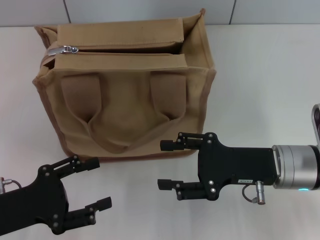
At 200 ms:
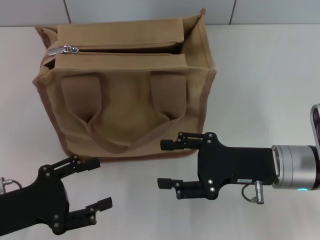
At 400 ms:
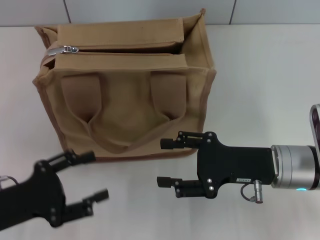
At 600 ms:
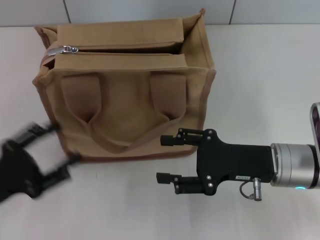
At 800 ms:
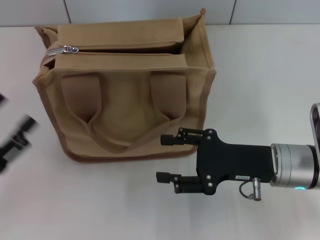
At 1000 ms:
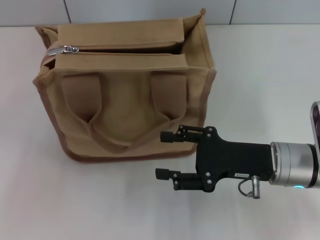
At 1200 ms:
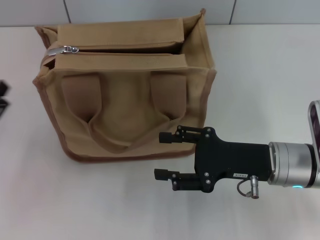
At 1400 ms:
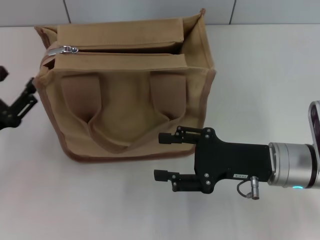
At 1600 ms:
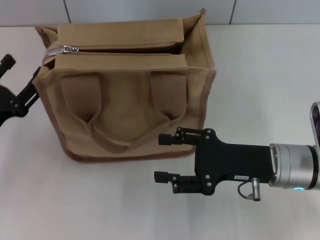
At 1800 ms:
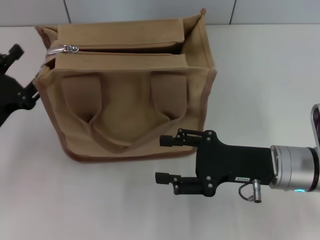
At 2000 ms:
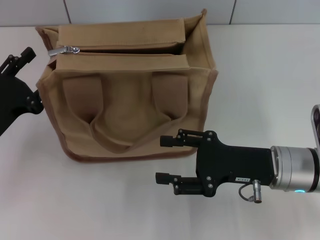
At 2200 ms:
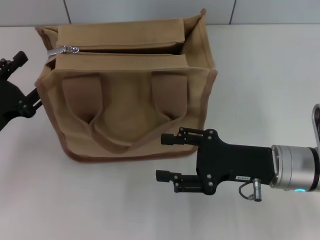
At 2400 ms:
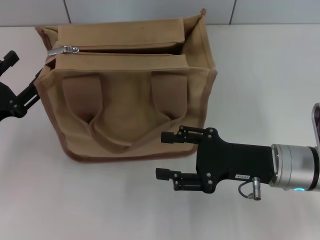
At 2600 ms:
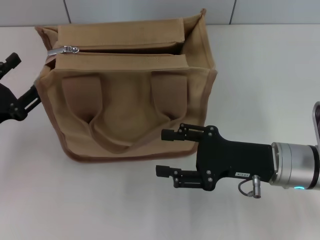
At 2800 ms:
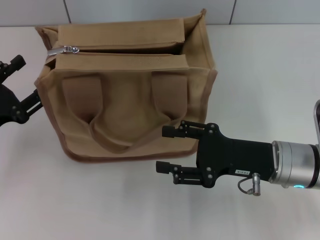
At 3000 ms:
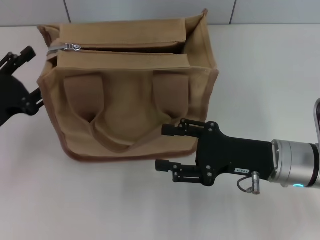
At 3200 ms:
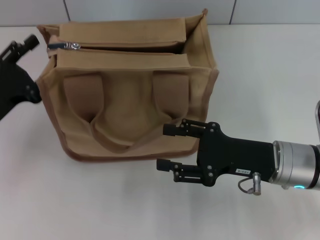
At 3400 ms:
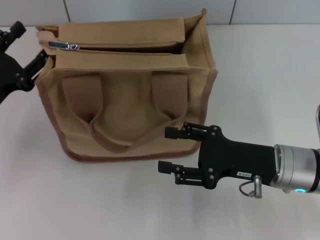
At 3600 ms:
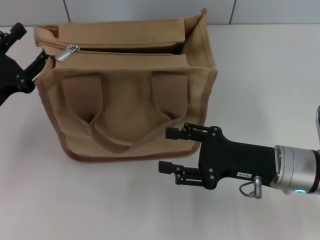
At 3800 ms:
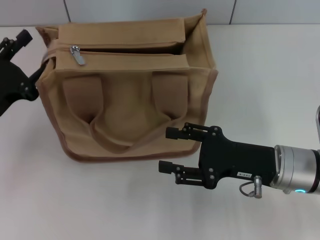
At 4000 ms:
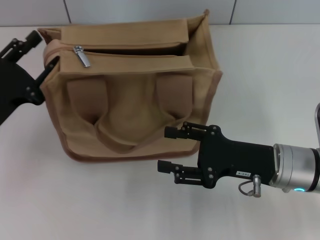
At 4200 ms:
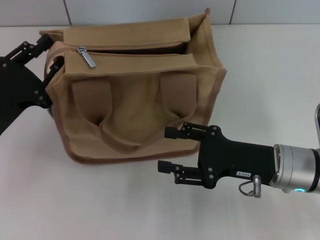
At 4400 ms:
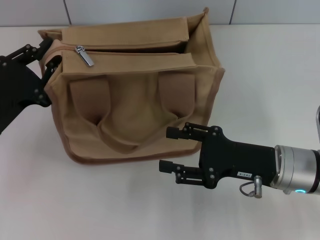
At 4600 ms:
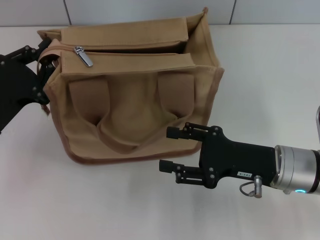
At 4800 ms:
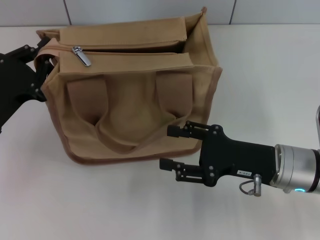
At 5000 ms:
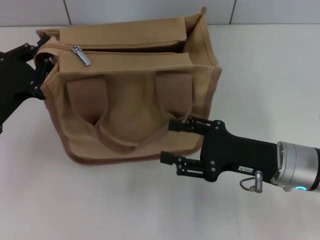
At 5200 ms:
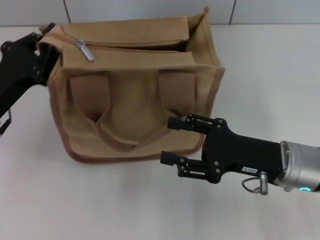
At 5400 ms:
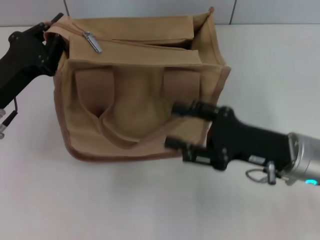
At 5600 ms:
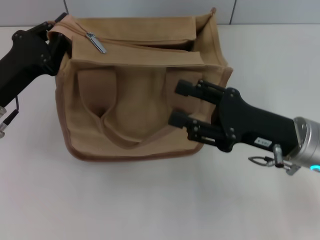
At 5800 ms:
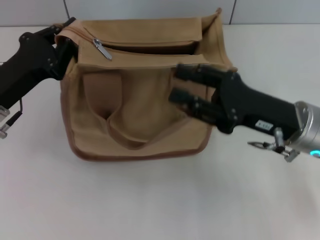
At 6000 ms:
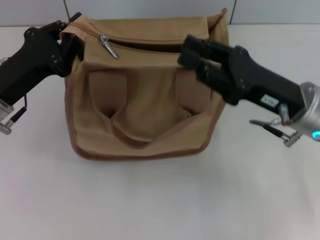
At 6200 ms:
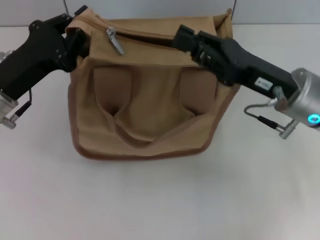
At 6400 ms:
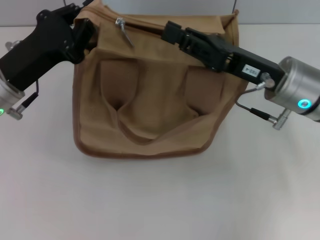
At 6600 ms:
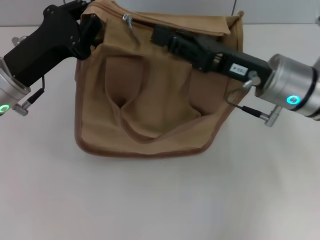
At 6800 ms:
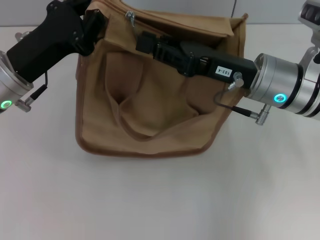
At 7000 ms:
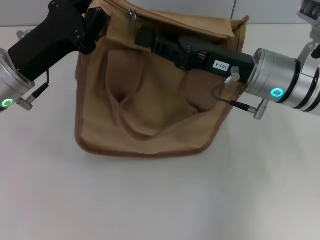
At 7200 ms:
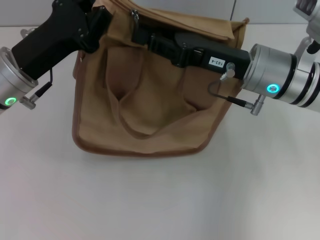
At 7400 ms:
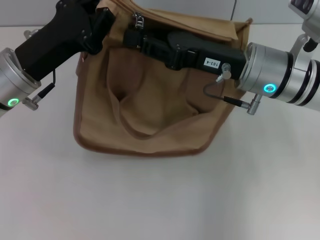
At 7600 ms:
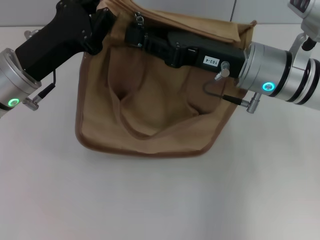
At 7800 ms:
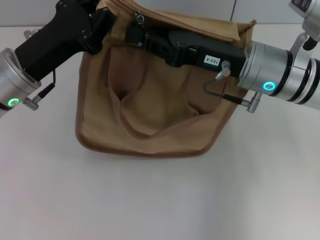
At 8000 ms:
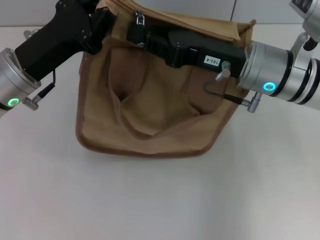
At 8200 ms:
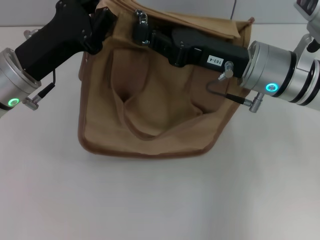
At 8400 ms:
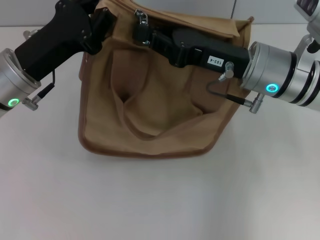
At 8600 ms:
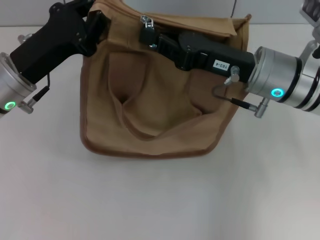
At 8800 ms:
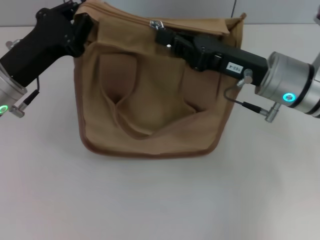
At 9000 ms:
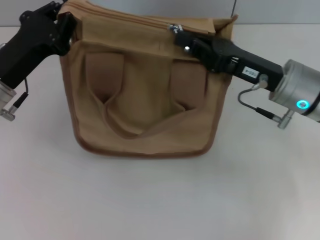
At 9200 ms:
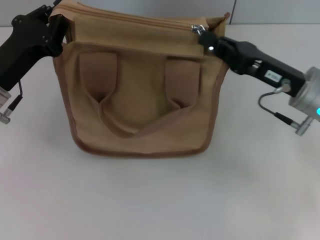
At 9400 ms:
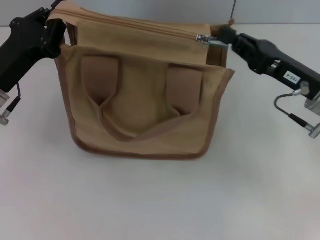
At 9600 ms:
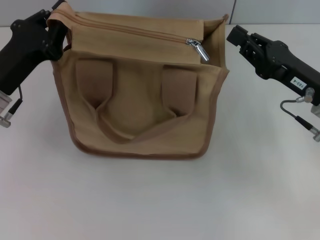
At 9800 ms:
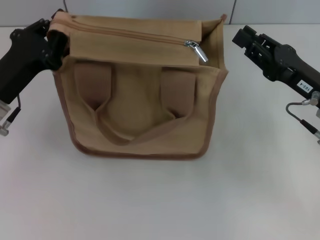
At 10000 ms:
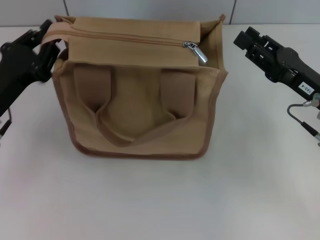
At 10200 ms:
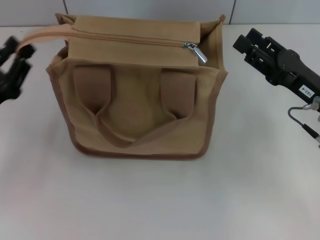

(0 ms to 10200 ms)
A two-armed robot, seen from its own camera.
Step, 0 ms - 9200 ms: Pull up the zipper with your right hand.
0 ms - 1400 ms: The left gripper ends up about 5 cm from where it was.
1400 ms - 3000 ms: The grippers stay close to where they were, moving slightly.
3000 ms - 4400 ms: There are only small adjustments of the grippers.
4400 ms - 5800 ms: The left gripper closes, while the right gripper moves approximately 5 cm.
5800 ms - 7200 ms: The left gripper shifts by roughly 5 cm. The right gripper is displaced forward by roughly 5 cm, and closes its fingers.
7200 ms - 8800 ms: There are only small adjustments of the grippers.
8800 ms - 10200 ms: The left gripper moves backward, to the left and downward, approximately 10 cm. Meanwhile the right gripper goes approximately 10 cm to the right, and opens its fingers.

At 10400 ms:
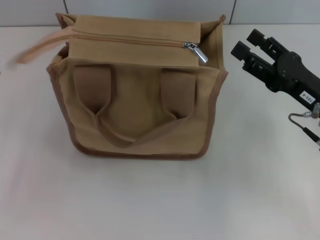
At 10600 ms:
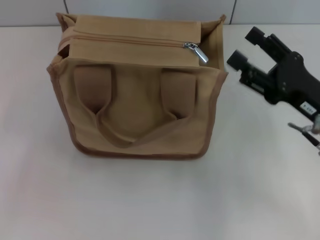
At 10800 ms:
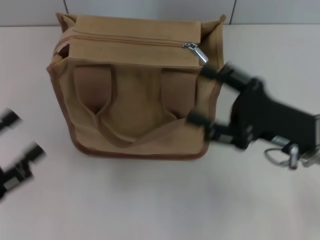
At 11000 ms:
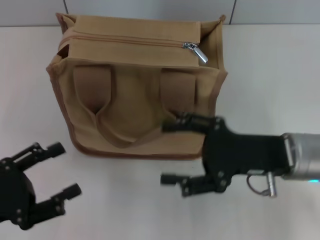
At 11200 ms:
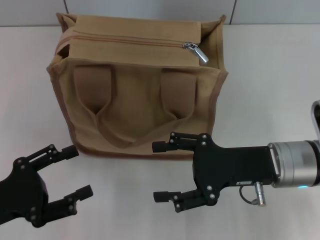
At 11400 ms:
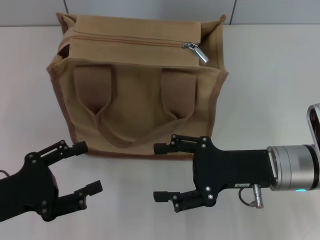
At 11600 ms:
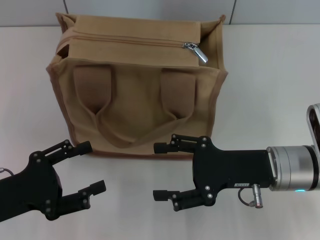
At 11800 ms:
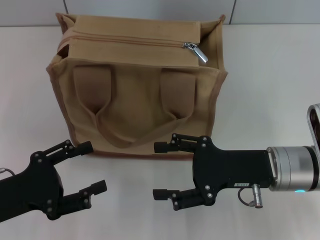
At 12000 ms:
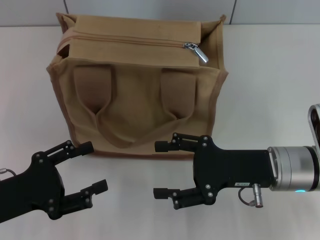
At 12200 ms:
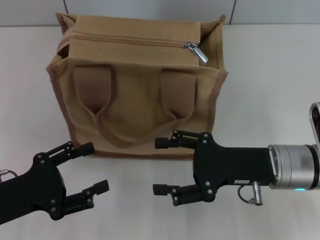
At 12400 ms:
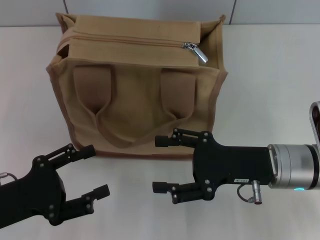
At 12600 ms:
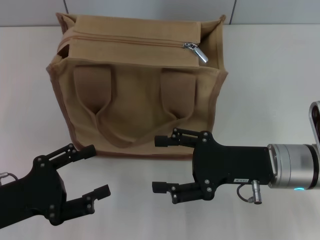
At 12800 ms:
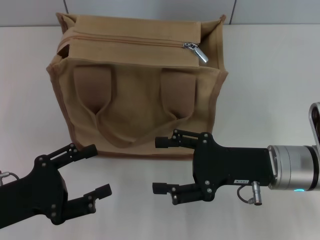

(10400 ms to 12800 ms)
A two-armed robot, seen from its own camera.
10400 ms - 11600 ms: The right gripper goes some 5 cm to the left; the left gripper opens its fingers.
11600 ms - 12800 ms: Both grippers stay put.

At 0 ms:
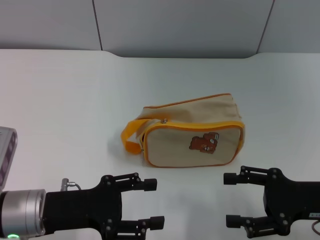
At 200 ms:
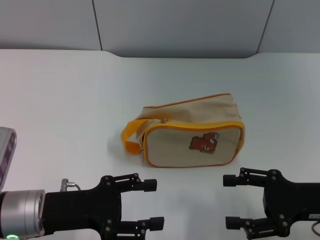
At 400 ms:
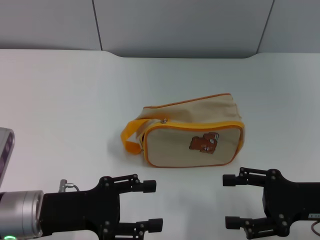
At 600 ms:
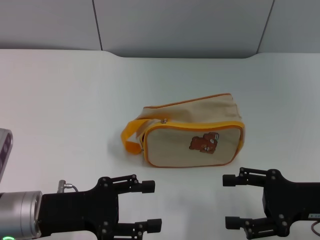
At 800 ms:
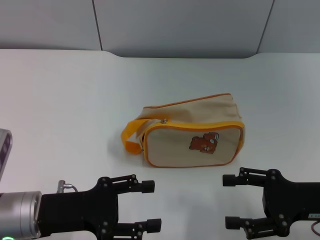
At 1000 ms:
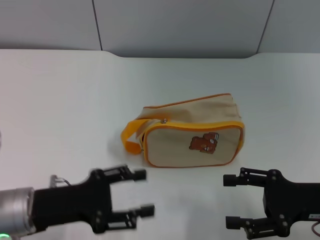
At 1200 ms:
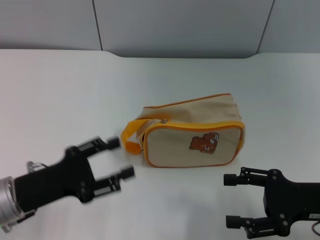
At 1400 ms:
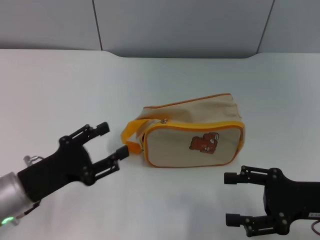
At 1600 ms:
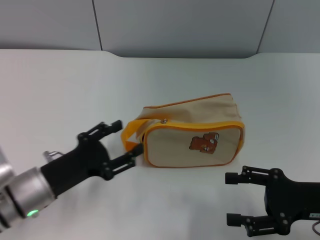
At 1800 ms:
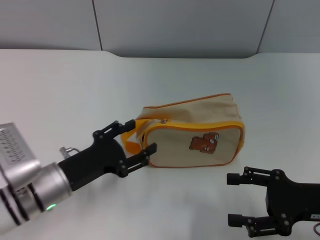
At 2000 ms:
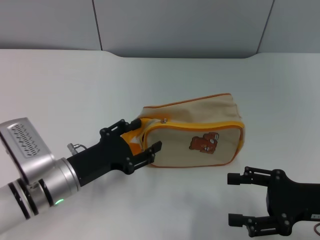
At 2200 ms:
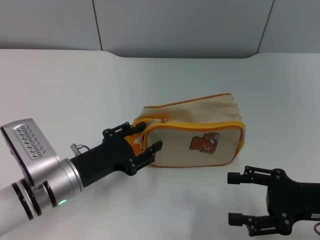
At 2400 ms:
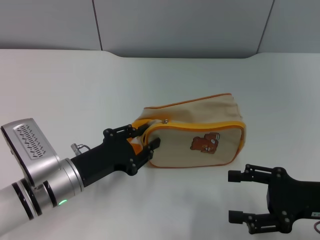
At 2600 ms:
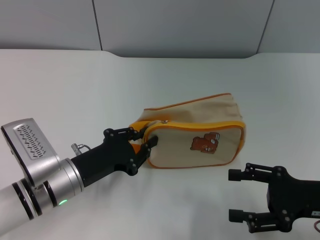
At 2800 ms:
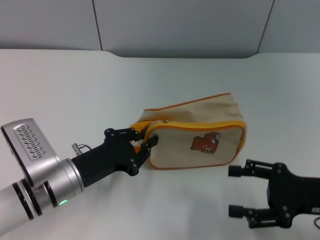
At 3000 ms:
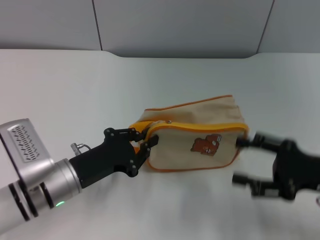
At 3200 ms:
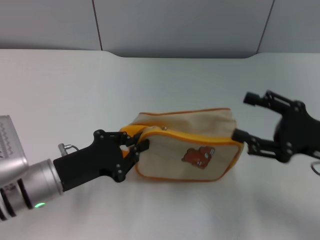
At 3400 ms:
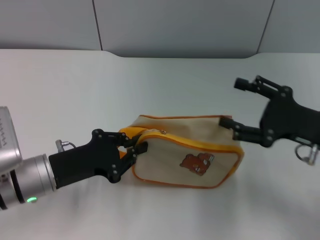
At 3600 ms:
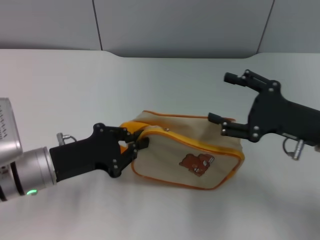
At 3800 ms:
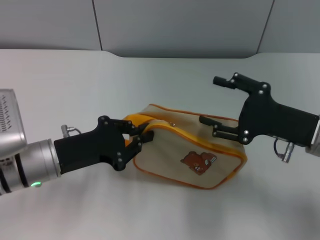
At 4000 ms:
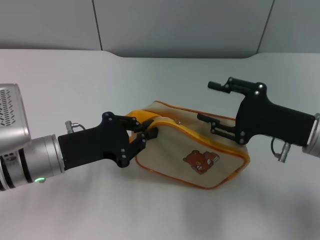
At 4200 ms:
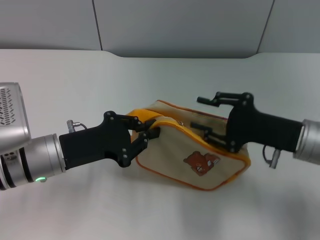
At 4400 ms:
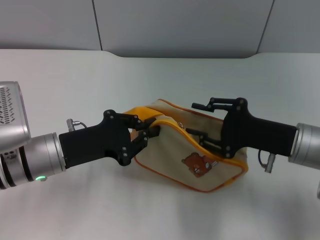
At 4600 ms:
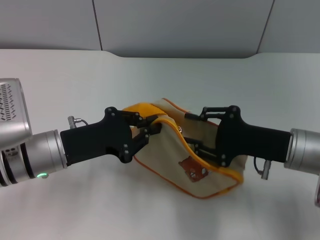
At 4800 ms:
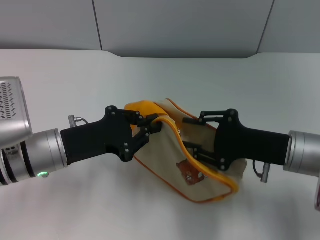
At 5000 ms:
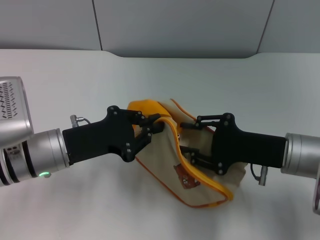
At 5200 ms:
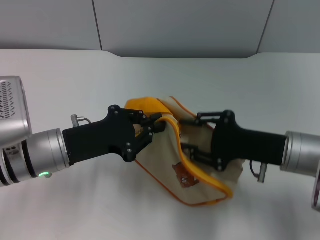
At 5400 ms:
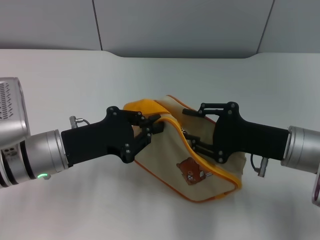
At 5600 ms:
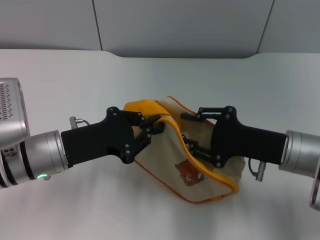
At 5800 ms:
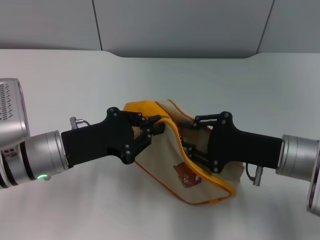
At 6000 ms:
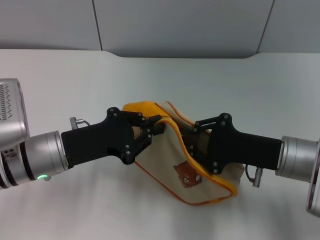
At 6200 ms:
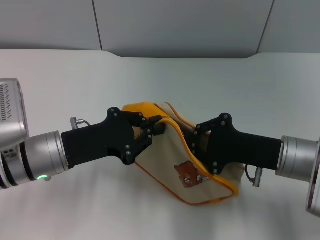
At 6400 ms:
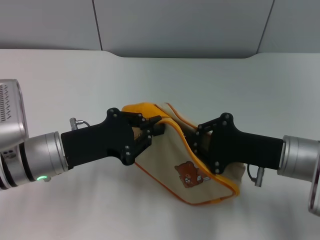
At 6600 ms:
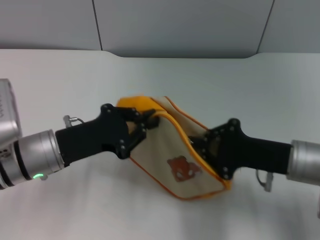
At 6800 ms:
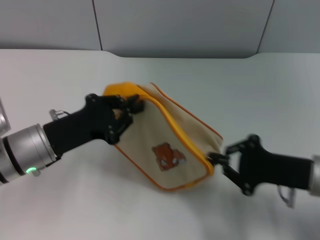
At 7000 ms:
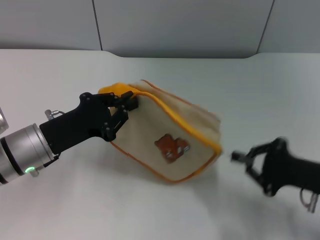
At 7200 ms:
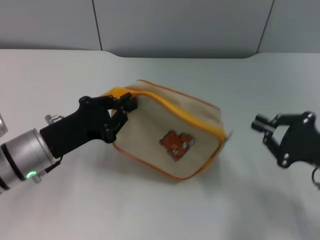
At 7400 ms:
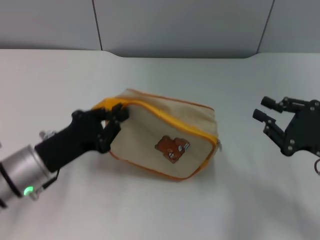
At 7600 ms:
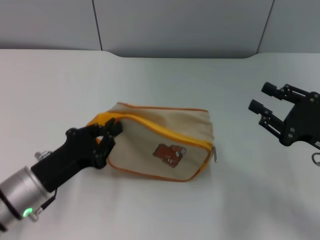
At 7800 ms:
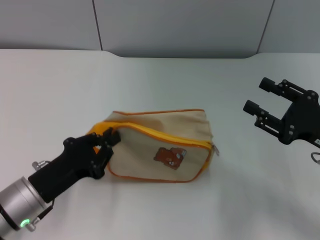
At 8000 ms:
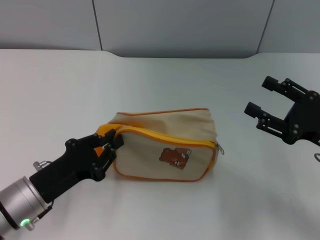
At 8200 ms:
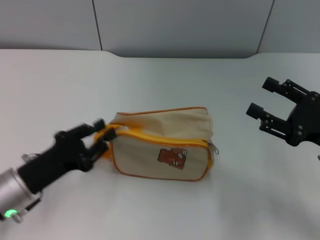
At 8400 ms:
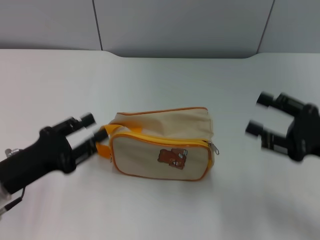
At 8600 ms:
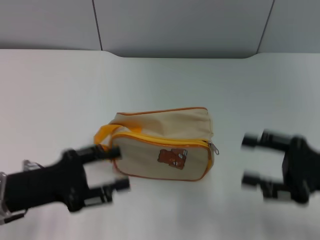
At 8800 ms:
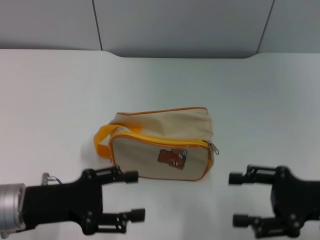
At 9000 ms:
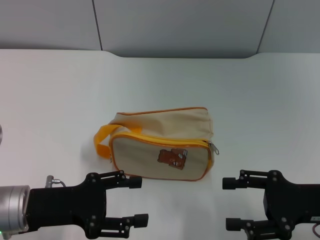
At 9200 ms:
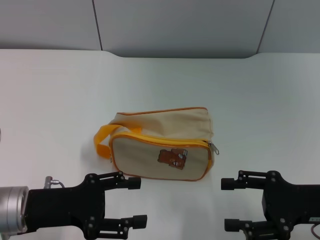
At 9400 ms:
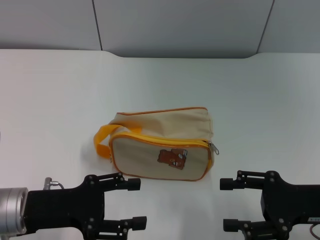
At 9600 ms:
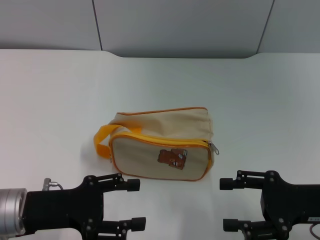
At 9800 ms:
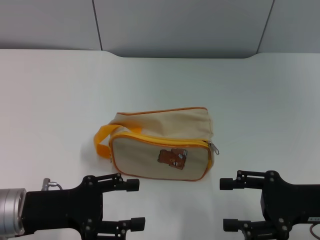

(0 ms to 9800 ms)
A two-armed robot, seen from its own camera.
Step, 0 ms - 3800 ms: Pick up the bag with left gripper.
Step, 4000 ms - 7200 ms: Unzip the zipper of bag with right gripper.
Step, 7400 ms - 8400 ms: Place the bag on the table with left gripper.
1400 ms - 2800 ms: The left gripper heads to the right, covering some 5 cm, and closes.
2800 ms - 4200 ms: The left gripper moves about 5 cm. The right gripper moves forward and to the left, approximately 10 cm.
4200 ms - 5600 ms: The grippers make only small movements.
5600 ms - 7000 ms: The right gripper travels to the right by about 5 cm, and closes up.
7000 ms - 8400 ms: The right gripper opens its fingers, while the left gripper is displaced backward by some 5 cm, and opens its fingers.
8400 ms - 9800 ms: The left gripper opens up.
